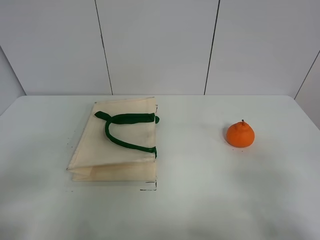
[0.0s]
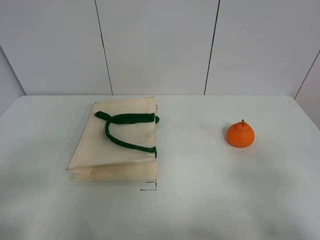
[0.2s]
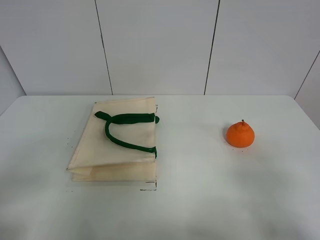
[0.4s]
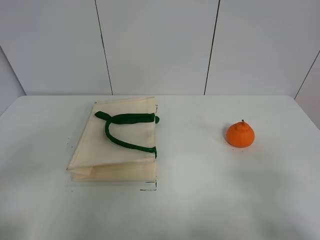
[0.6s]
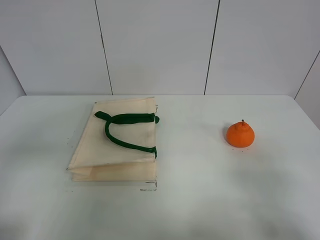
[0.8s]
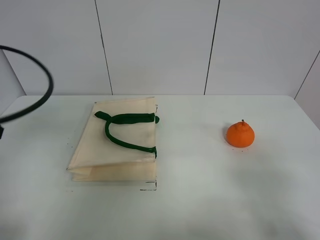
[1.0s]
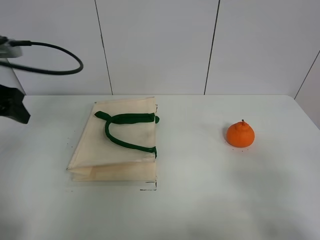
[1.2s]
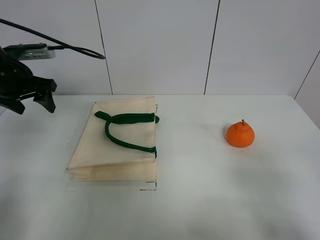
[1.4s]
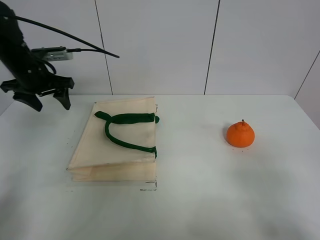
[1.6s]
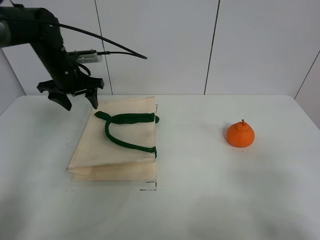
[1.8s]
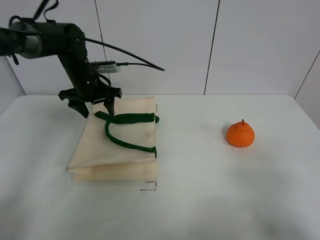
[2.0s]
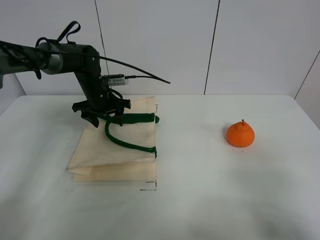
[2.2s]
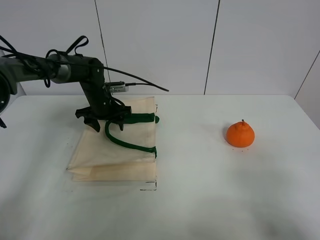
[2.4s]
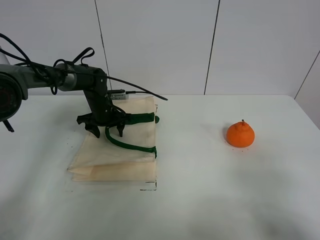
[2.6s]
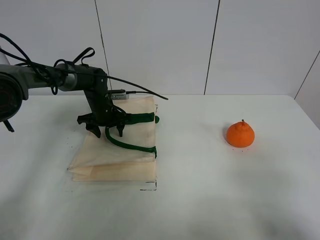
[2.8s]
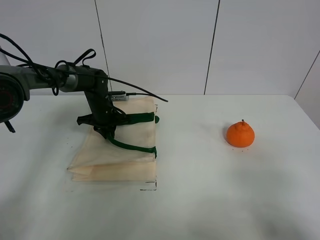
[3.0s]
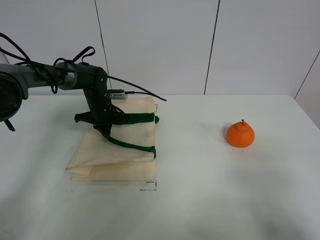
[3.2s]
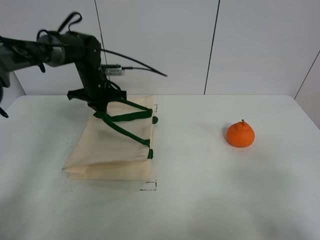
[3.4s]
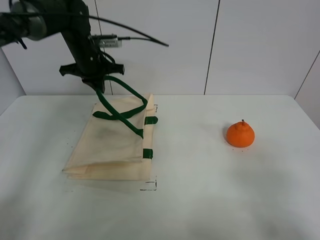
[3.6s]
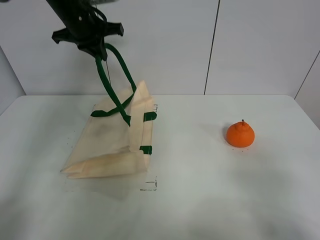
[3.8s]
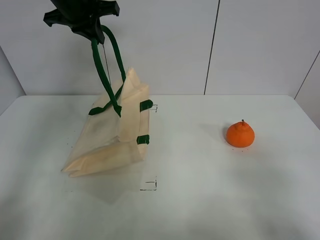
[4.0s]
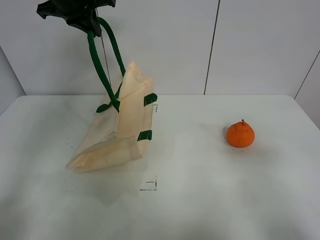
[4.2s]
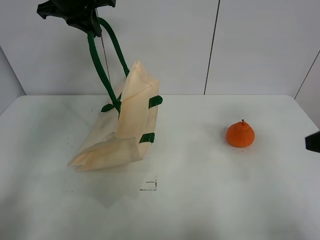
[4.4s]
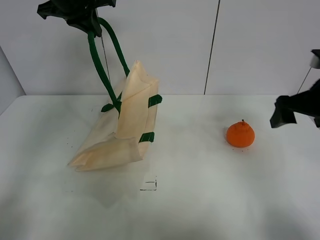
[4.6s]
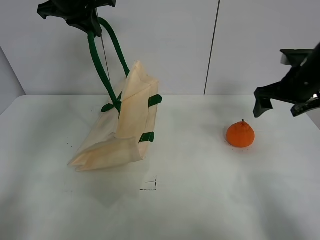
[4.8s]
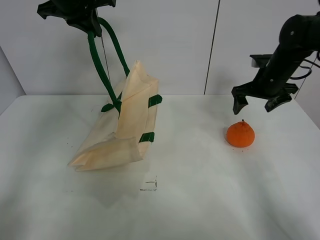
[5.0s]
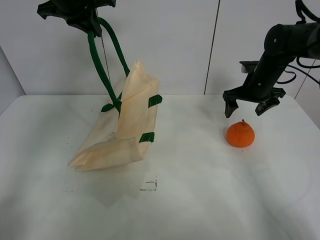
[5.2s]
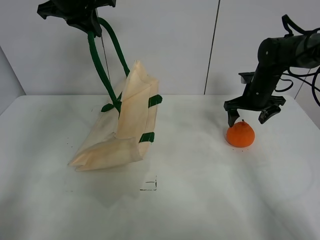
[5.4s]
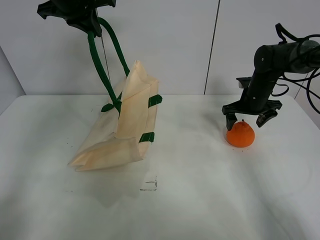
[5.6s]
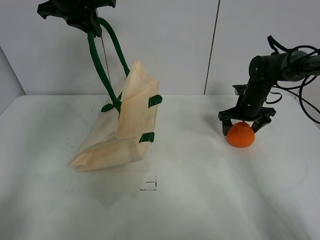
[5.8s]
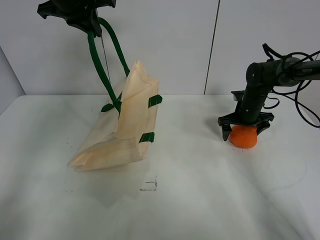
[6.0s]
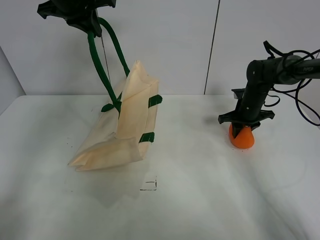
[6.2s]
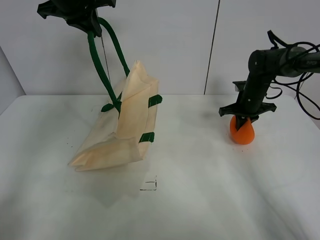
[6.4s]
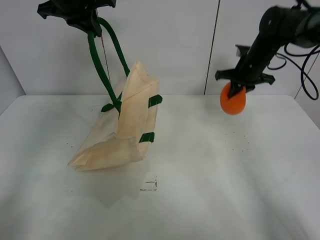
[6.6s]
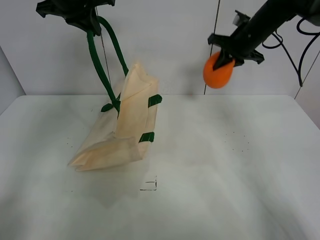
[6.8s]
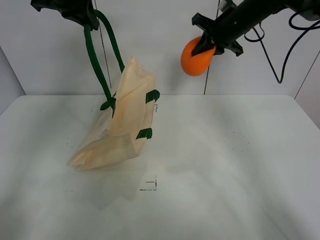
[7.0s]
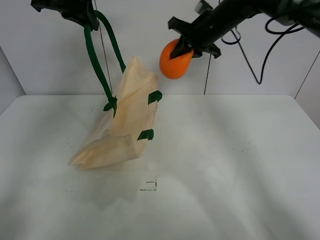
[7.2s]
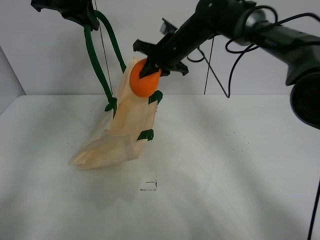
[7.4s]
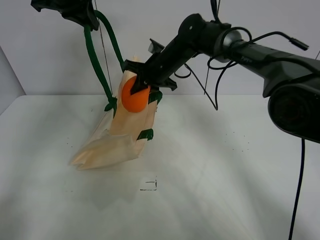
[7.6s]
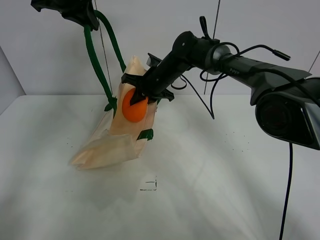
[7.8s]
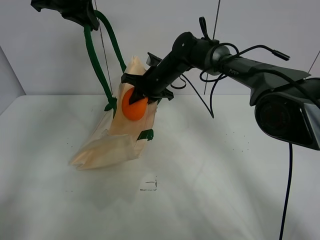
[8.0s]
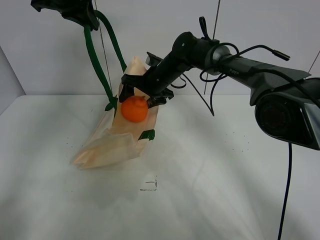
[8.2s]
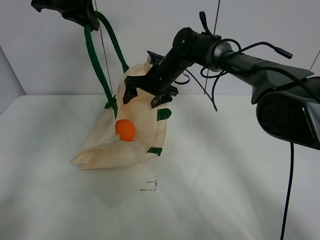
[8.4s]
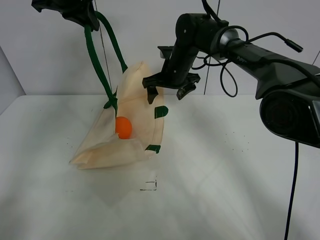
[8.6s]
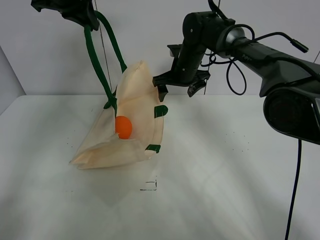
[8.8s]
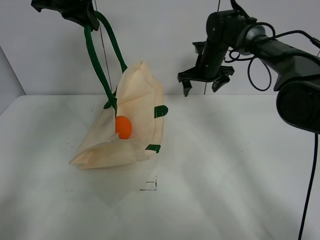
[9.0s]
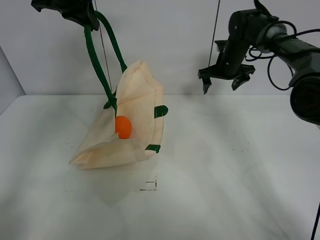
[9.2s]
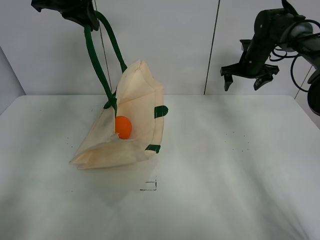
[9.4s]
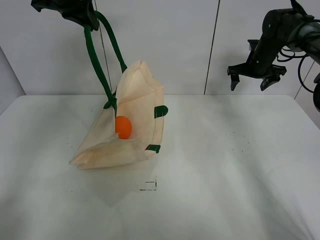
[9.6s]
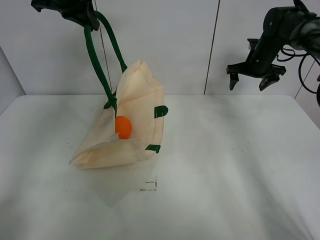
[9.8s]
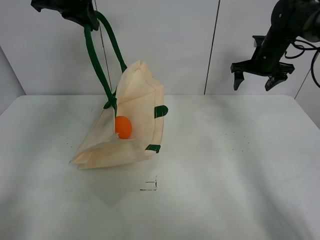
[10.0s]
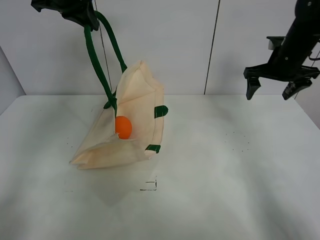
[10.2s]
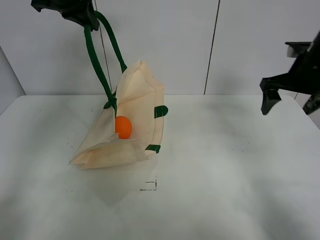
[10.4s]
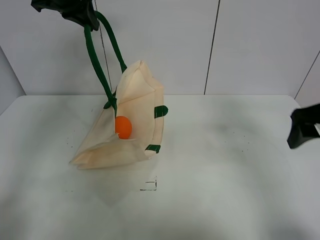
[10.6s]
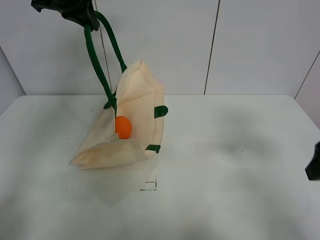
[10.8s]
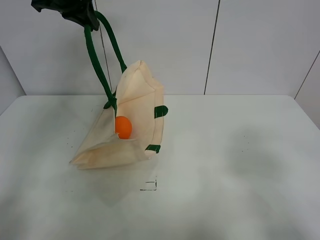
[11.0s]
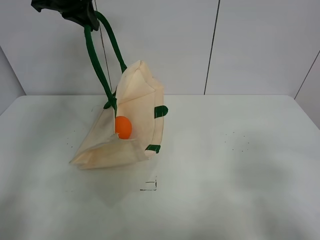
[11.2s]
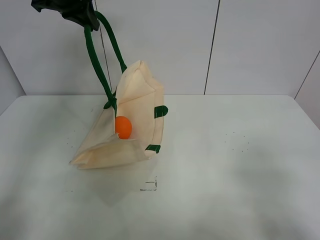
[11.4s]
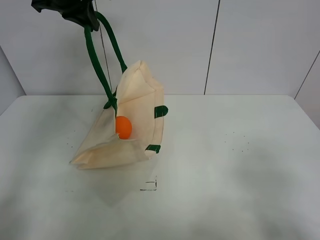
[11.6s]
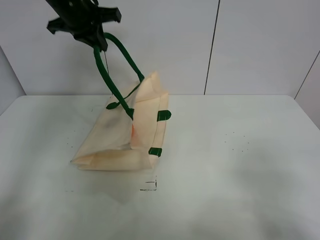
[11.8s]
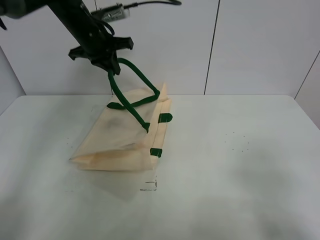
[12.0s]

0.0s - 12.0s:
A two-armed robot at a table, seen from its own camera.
Task of the whole recording: open the white linen bag and put the orange in the bag.
Step, 0.0s - 4.0s: Lift the handbag with left gripper.
Step, 4.2s - 6.2s: Grasp the orange with right gripper.
Step, 6.4s - 8.2s: Place the orange in the handbag with right gripper.
0.0s - 1.6s: The left gripper moves forward, roughly 40 cm.
1.6s - 3.0s: The left gripper travels downward and to the right by about 20 cm, and closes up.
3.0s - 4.4s: The left gripper travels upward by some 30 cm. Meanwhile the right gripper moves forward, roughly 15 cm.
4.4s - 6.0s: The right gripper heads forward and downward, covering some 35 cm.
6.0s - 7.6s: The right gripper travels to the left and upward by approximately 25 cm, and closes up.
7.6s - 9.0s: The right gripper is displaced to the right by some 15 cm, and opens up.
9.0s - 10.4s: The right gripper travels backward, to the right and upward by some 25 cm.
10.4s - 12.0s: The left gripper heads downward, covering about 10 cm; the right gripper shifts approximately 30 cm backward.

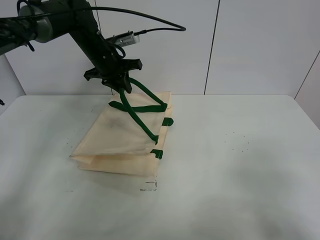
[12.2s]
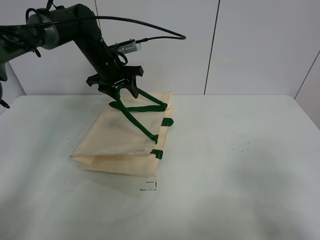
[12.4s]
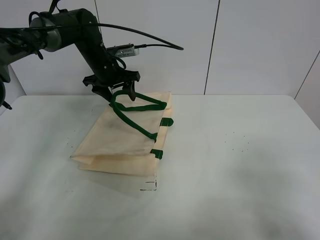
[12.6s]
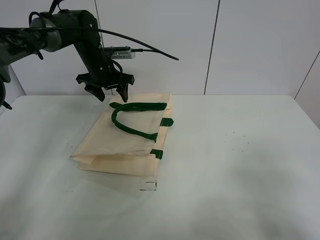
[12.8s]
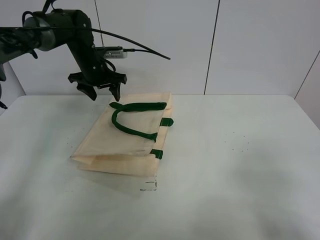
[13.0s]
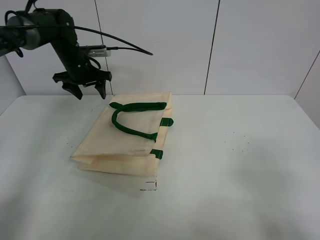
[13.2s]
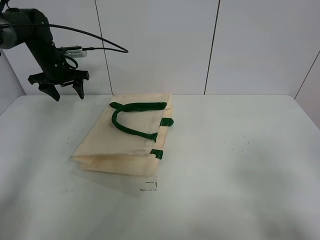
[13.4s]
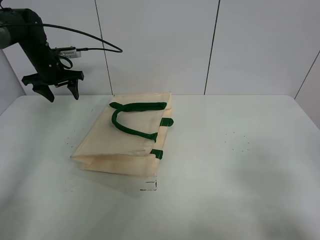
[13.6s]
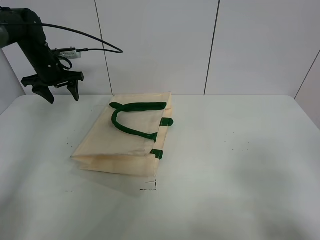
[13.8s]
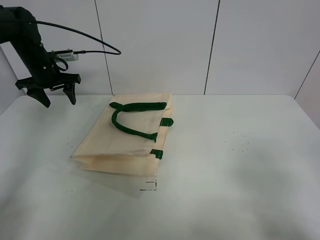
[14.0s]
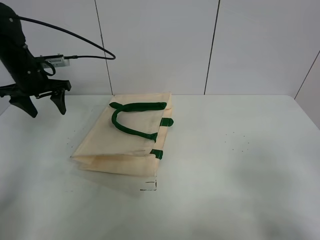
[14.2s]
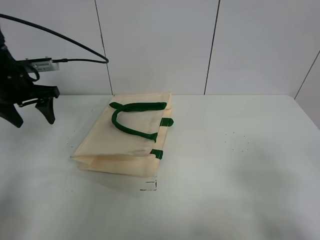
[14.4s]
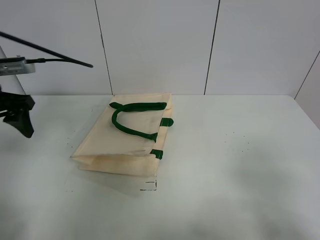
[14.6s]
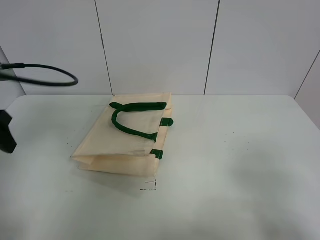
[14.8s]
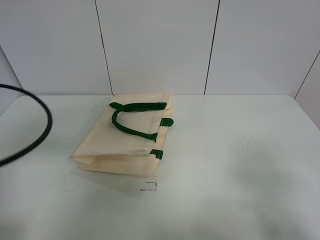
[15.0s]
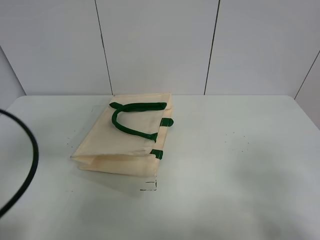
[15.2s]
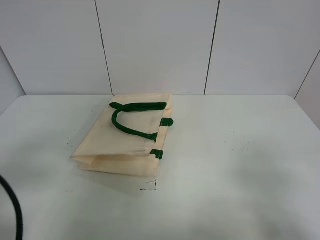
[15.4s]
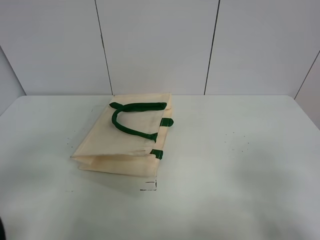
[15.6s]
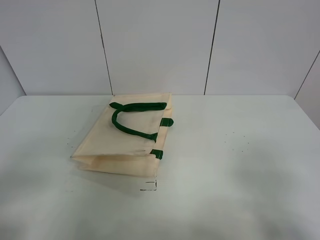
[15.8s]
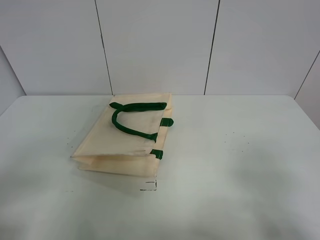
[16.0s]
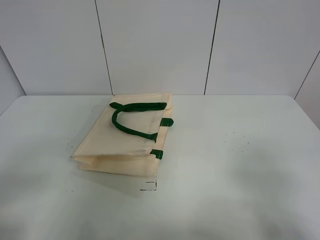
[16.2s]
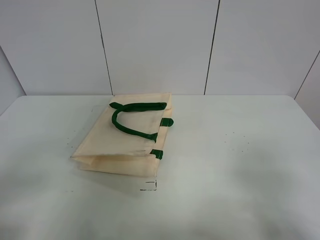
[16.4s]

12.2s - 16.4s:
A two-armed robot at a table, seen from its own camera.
Task of the whole recording: open the white linen bag and put the orange in the bag.
12.2s - 13.6s: The left gripper shifts roughly 15 cm to the left, and opens up.
13.6s - 15.0s: The left gripper travels backward by some 35 cm.
15.0s - 16.4s: The left gripper moves backward, roughly 15 cm.

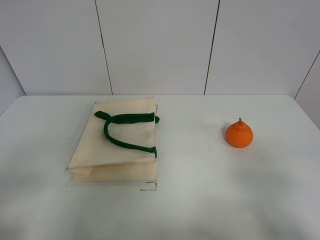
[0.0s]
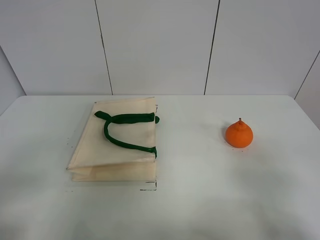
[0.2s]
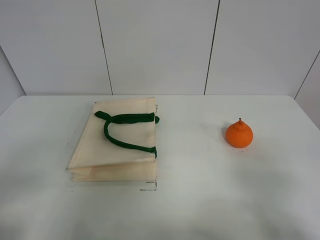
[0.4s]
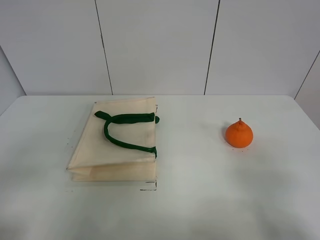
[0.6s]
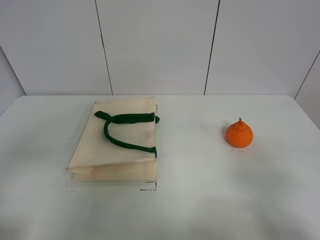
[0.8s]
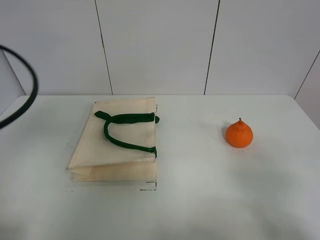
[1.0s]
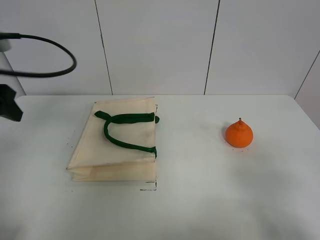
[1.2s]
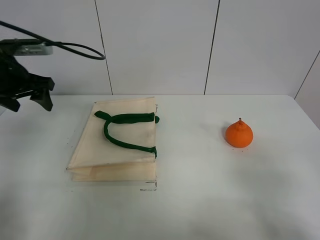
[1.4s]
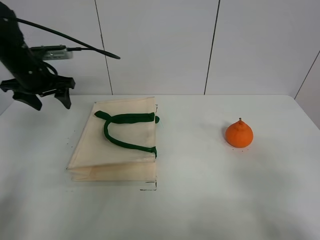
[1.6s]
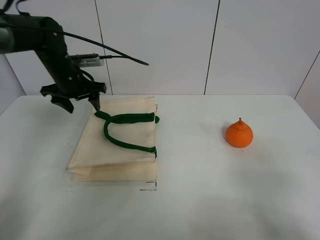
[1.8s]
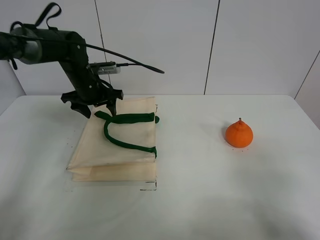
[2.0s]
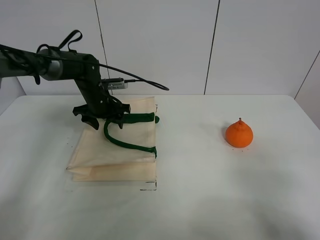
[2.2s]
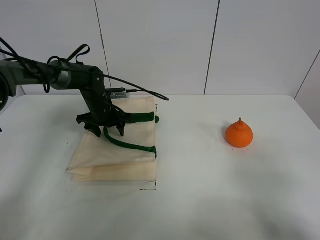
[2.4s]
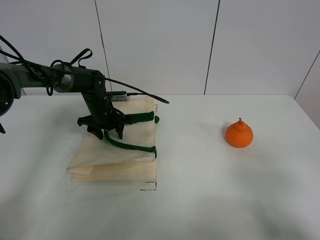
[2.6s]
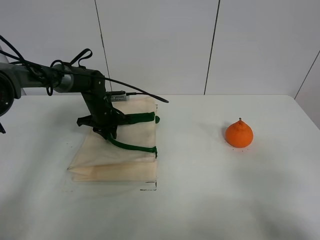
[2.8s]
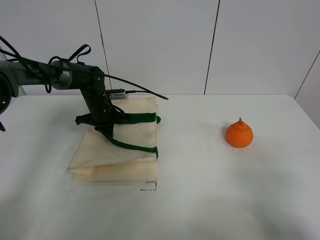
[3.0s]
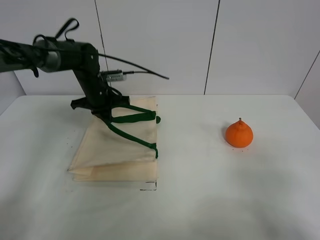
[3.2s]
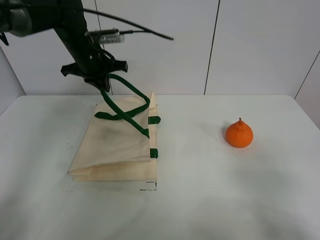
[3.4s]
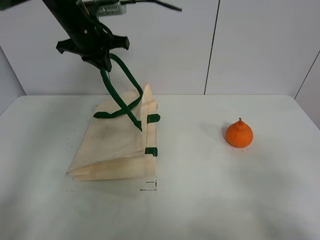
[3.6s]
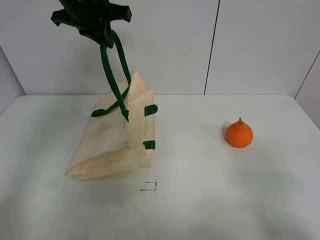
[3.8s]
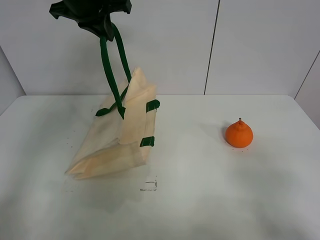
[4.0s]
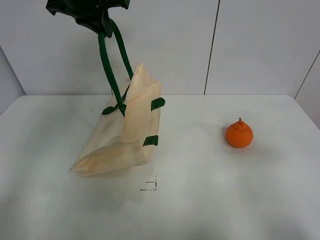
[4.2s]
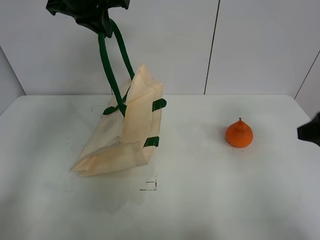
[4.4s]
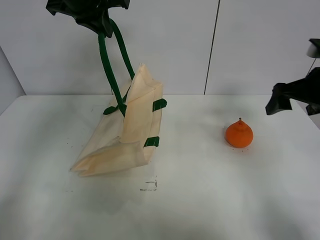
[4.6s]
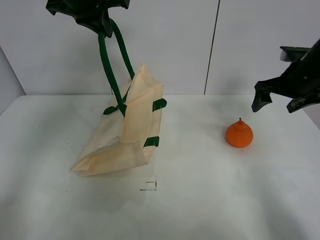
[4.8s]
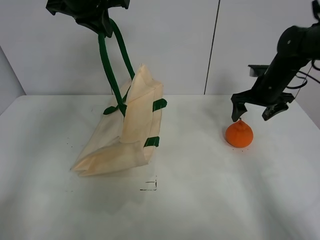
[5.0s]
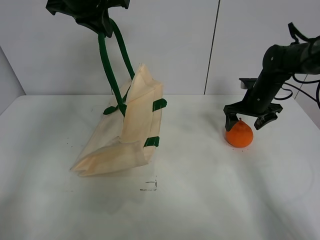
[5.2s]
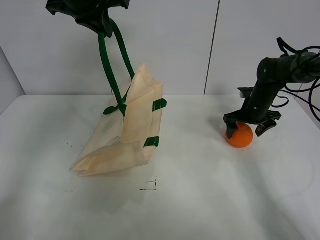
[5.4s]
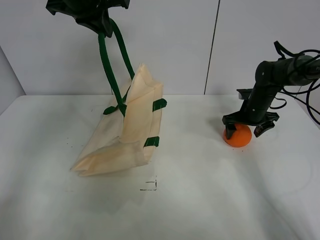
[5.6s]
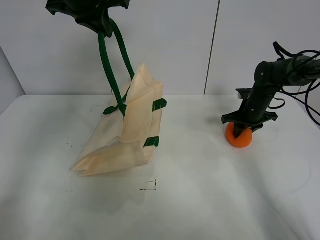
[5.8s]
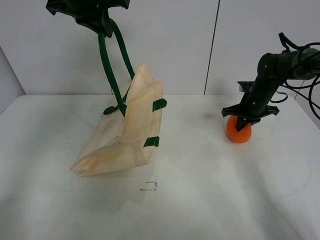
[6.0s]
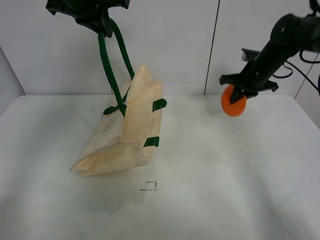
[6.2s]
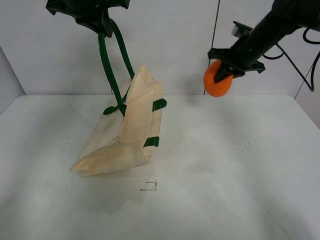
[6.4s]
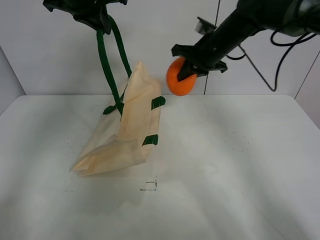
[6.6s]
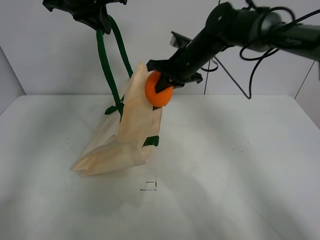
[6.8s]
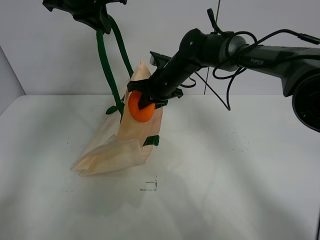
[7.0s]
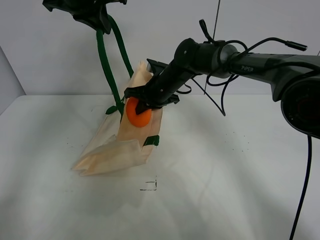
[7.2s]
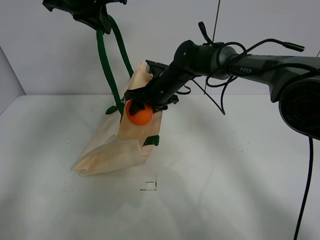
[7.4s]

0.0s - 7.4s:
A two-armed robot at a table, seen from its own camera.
Task of the whole recording: open the white linen bag and put the orange in the bag.
Step, 0.0s - 4.0s: Lift the handbag with left gripper.
Step, 4.2s - 6.0s: Grasp the orange with right gripper.
1.4s - 3.0s: The left gripper shifts some 30 cm downward, forward and to the right, and closes up.
3.0s - 4.4s: The right gripper travels forward by roughly 10 cm. The left gripper travels upward by some 30 cm.
4.4s - 6.0s: The right gripper is displaced forward and downward by some 35 cm, and closes.
6.0s - 7.4s: The right gripper heads to the left, covering approximately 25 cm.
